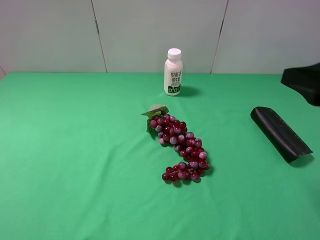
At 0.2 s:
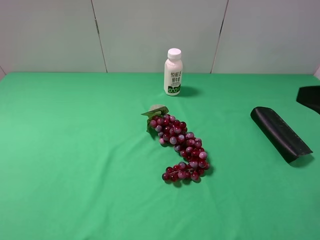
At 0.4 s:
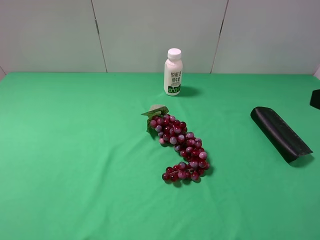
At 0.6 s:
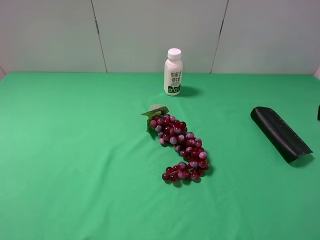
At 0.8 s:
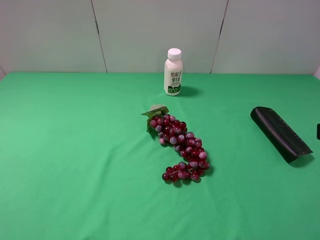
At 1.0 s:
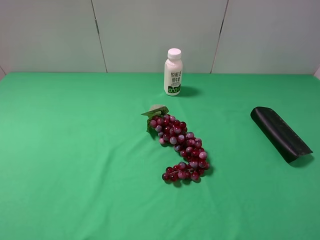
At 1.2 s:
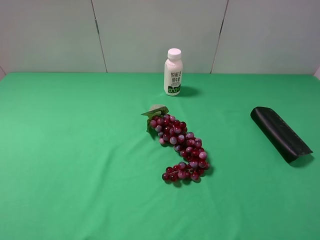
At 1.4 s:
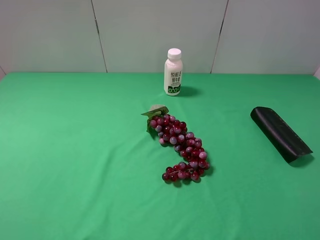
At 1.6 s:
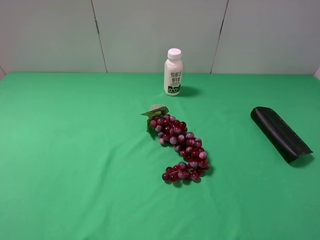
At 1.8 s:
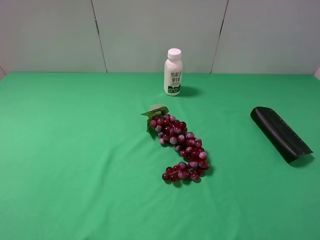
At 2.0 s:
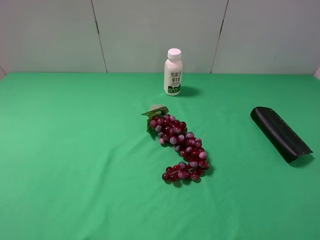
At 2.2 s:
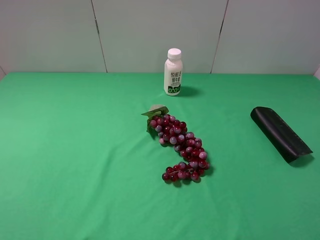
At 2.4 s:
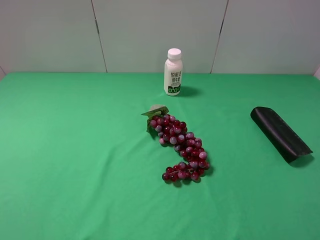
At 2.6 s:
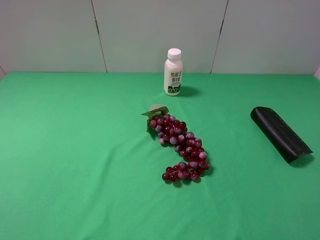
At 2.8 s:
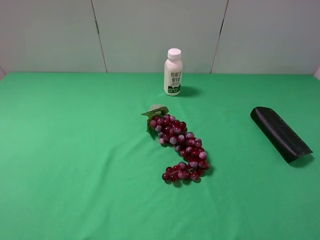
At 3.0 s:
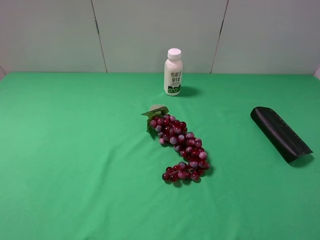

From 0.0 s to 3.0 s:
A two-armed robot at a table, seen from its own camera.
Task of the whole recording: use the left gripper to pick up the item and transfer it from the left gripper to the right gripper.
From 0.0 s to 1.6 s: The right gripper is displaced backward by about 15 cm.
